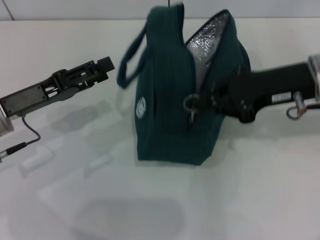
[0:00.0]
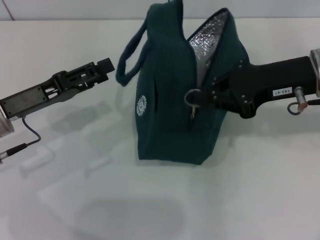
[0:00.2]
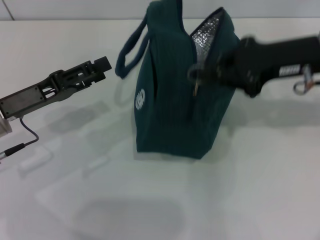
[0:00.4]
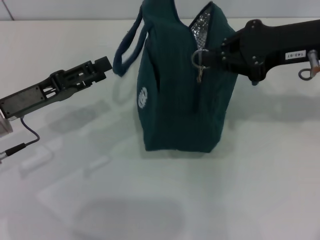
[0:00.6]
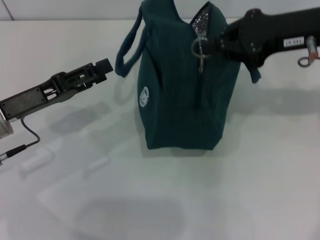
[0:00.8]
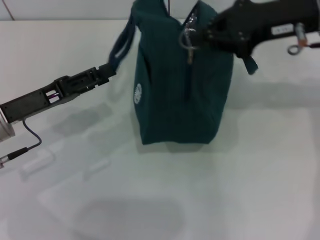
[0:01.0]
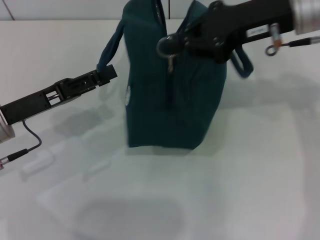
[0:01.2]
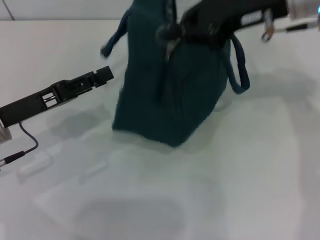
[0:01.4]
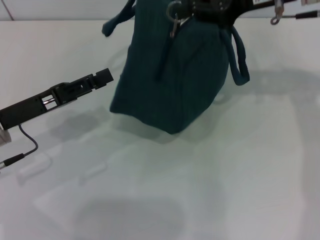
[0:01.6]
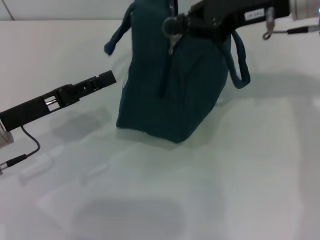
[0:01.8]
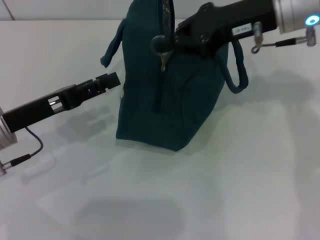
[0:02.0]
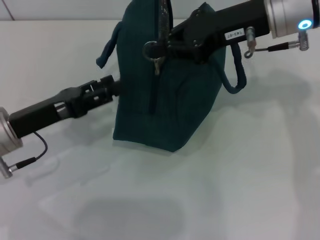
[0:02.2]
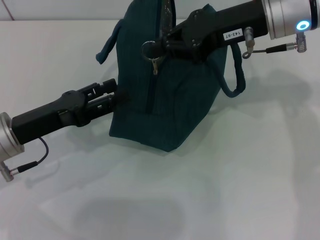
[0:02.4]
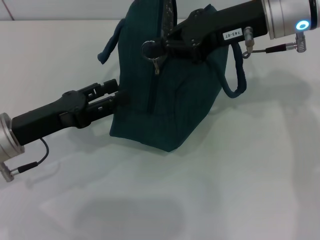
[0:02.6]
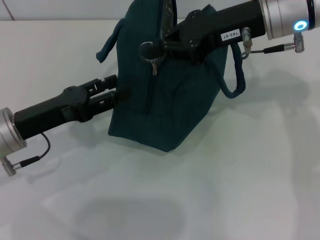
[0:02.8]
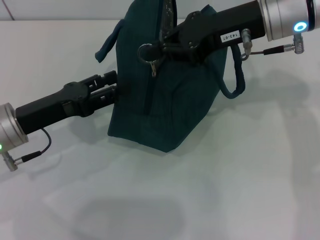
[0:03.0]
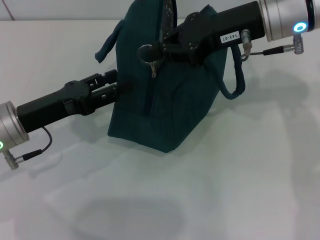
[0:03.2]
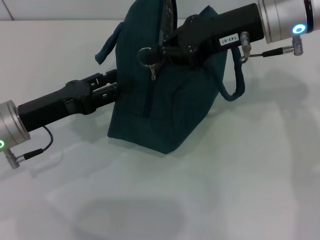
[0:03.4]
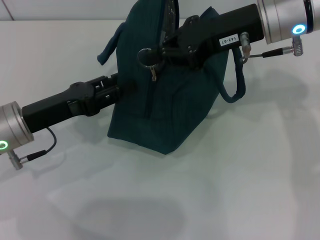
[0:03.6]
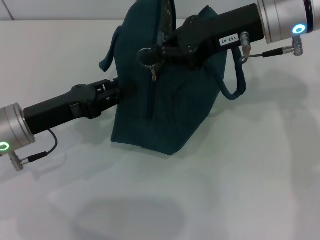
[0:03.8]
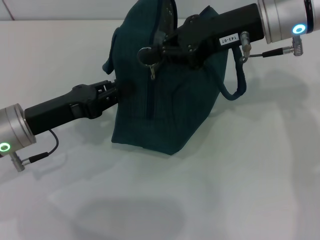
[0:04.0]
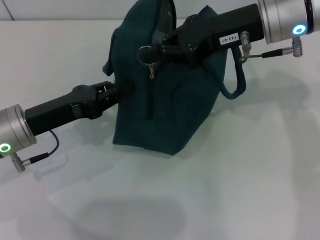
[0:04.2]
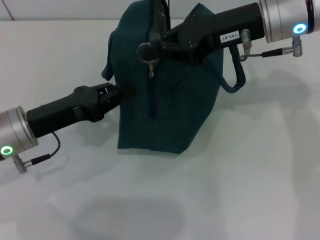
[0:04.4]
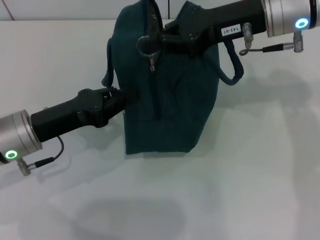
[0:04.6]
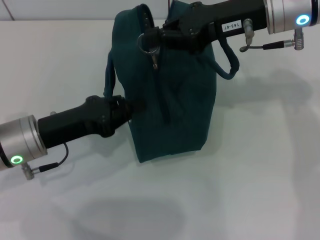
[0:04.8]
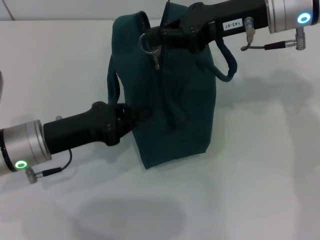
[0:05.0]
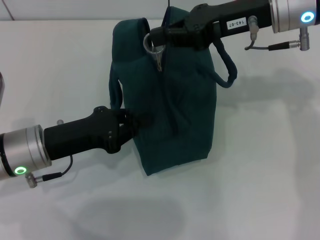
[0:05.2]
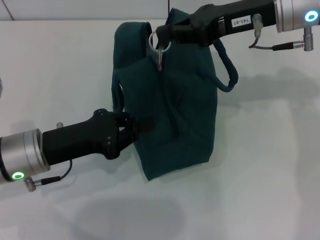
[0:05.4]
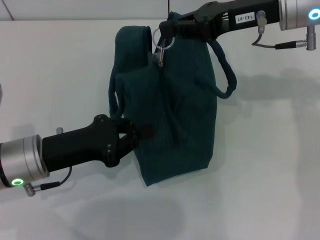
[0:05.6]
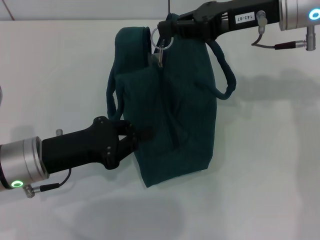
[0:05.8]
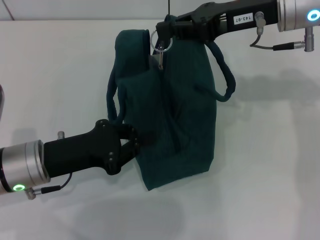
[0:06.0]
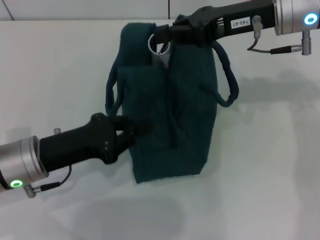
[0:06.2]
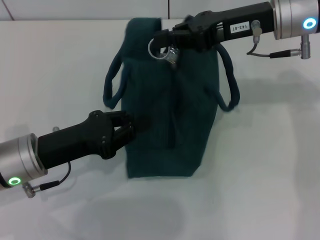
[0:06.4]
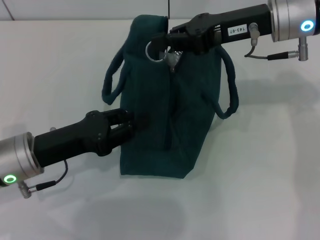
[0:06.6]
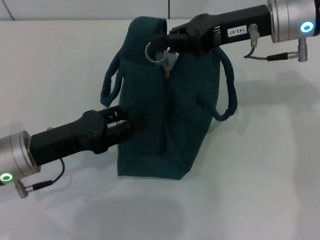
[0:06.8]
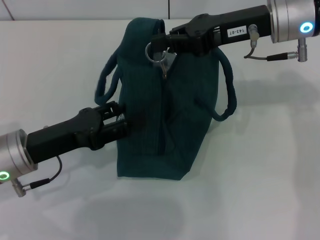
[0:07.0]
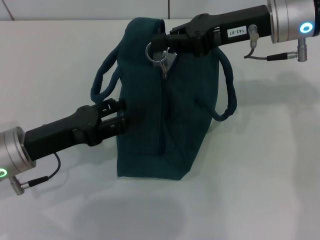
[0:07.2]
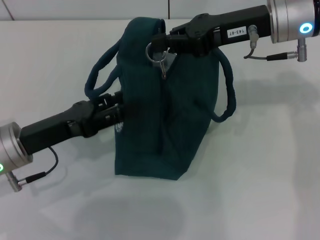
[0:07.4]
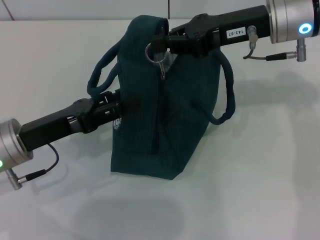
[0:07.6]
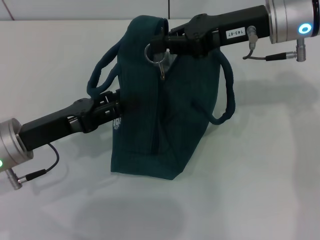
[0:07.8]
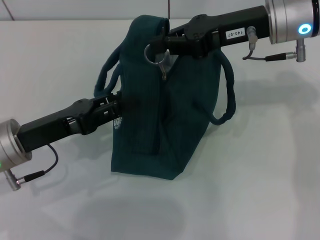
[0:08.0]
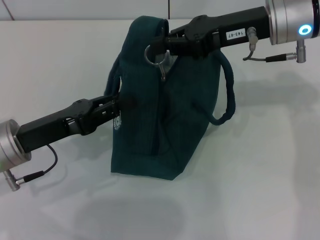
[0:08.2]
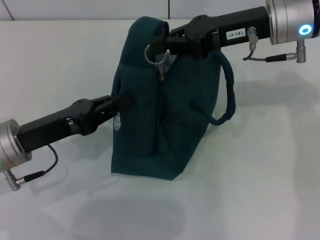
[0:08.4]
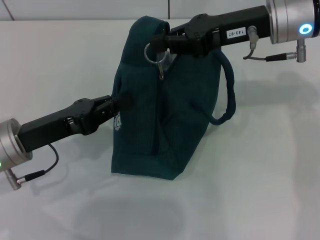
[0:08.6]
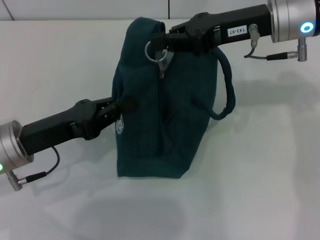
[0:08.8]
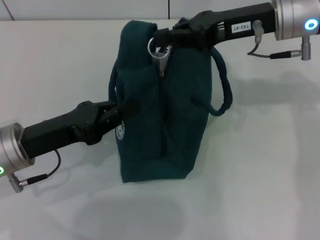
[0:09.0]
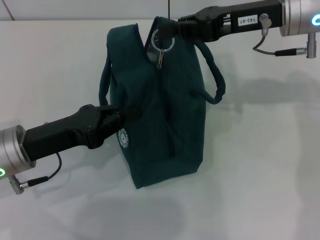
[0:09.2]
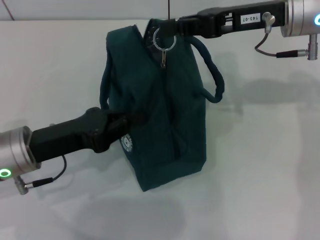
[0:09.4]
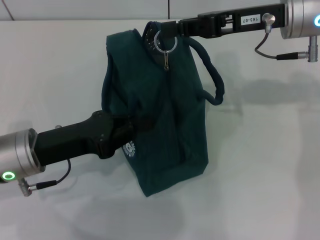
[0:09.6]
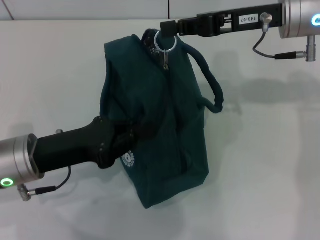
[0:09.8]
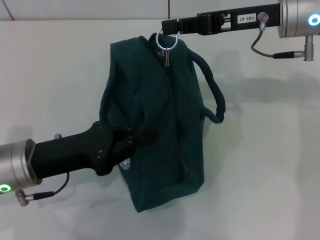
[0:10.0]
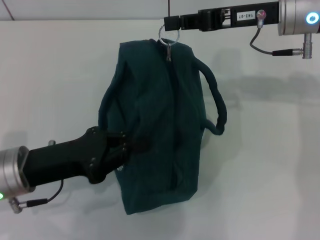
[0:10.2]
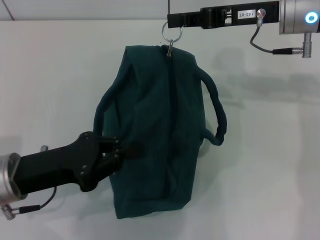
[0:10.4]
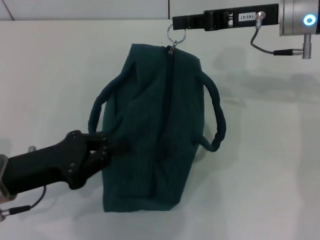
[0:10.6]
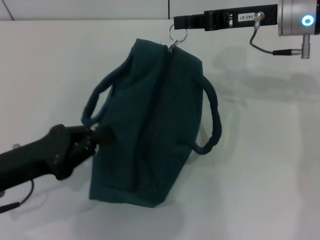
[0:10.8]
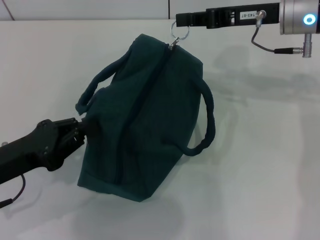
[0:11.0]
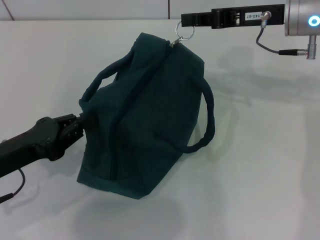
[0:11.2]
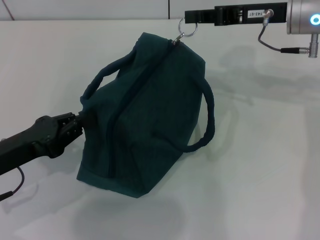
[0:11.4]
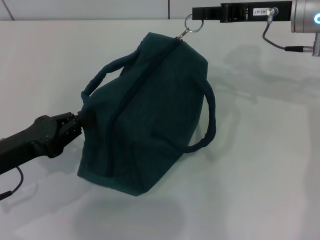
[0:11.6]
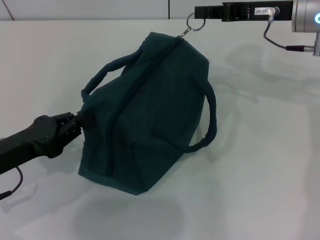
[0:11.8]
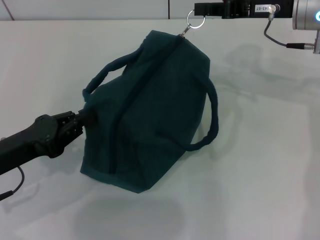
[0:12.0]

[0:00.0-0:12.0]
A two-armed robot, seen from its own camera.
0:00.0 to 0:01.6: The right gripper heads upward and forward, covering some 10 cm.
0:03.0 to 0:04.4: The left gripper closes up.
0:06.0 to 0:07.6: The left gripper opens up.
0:07.6 to 0:09.0: The left gripper closes up.

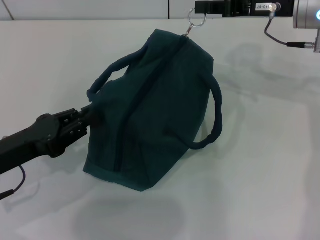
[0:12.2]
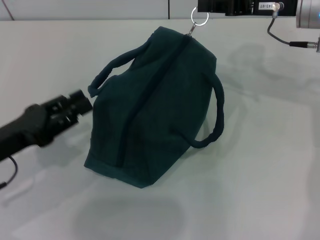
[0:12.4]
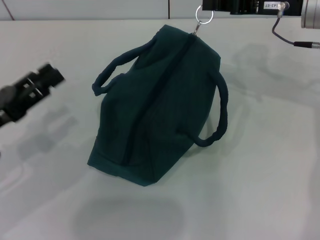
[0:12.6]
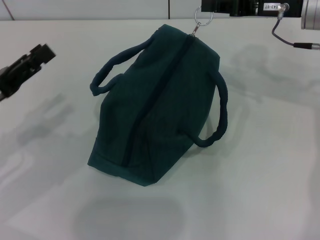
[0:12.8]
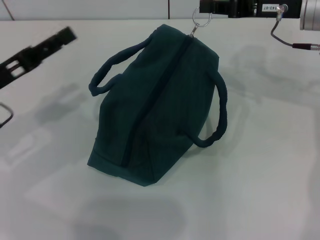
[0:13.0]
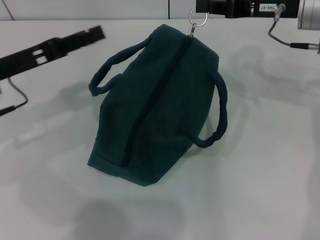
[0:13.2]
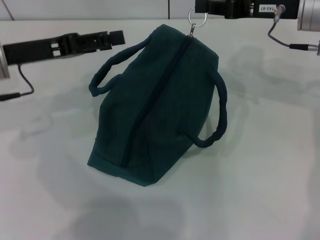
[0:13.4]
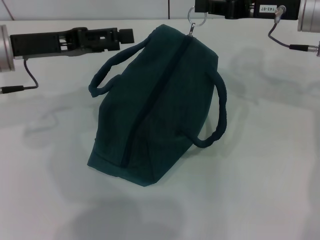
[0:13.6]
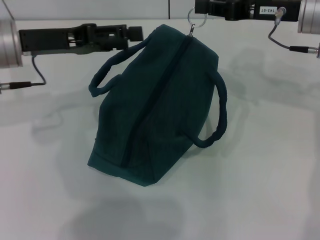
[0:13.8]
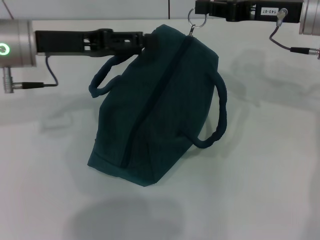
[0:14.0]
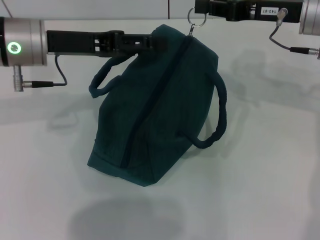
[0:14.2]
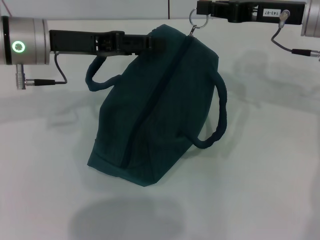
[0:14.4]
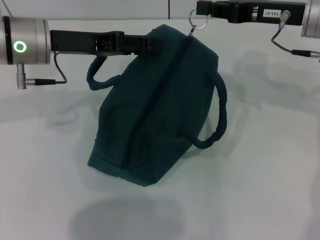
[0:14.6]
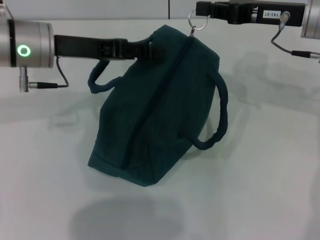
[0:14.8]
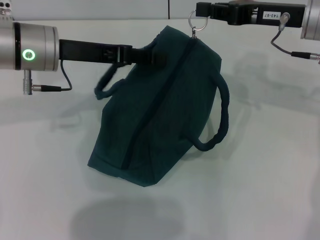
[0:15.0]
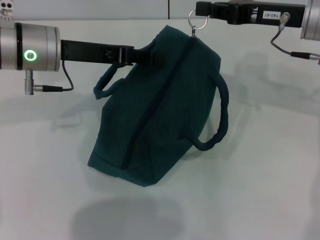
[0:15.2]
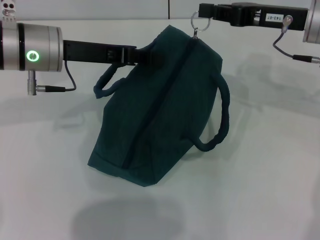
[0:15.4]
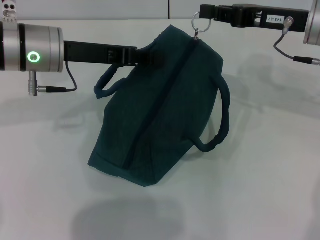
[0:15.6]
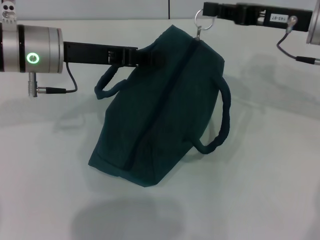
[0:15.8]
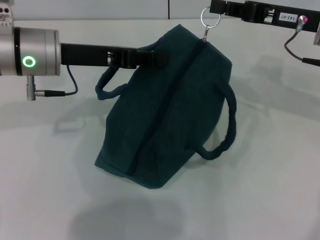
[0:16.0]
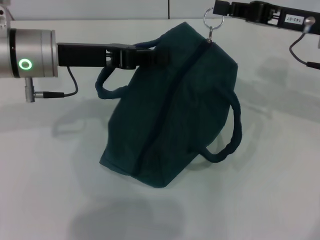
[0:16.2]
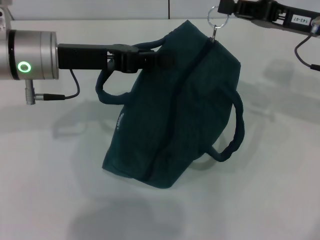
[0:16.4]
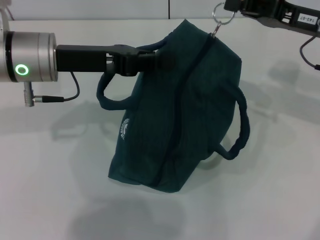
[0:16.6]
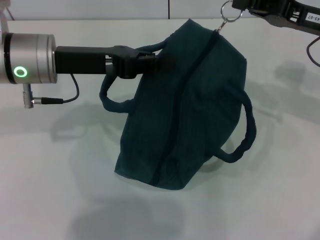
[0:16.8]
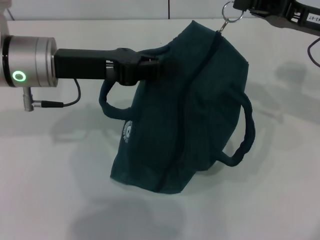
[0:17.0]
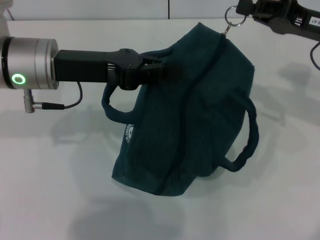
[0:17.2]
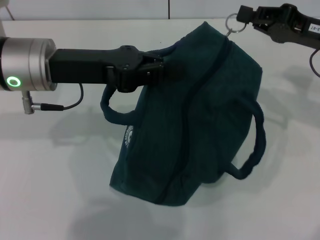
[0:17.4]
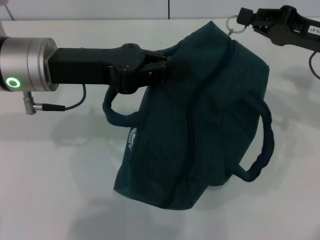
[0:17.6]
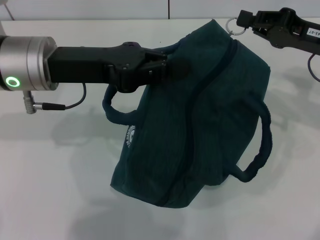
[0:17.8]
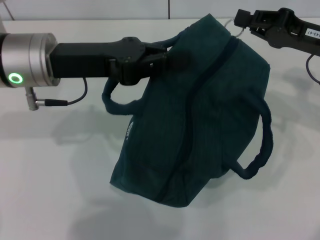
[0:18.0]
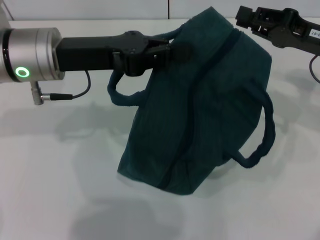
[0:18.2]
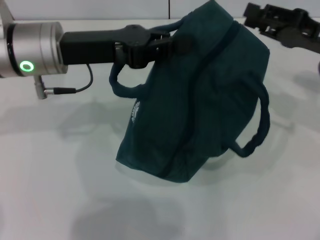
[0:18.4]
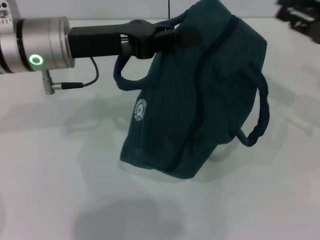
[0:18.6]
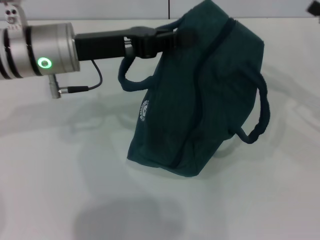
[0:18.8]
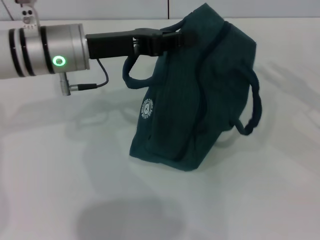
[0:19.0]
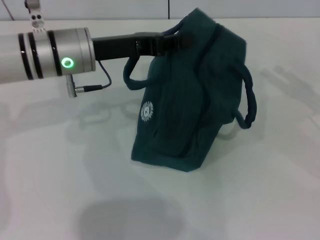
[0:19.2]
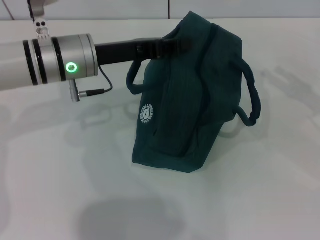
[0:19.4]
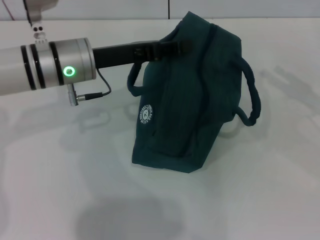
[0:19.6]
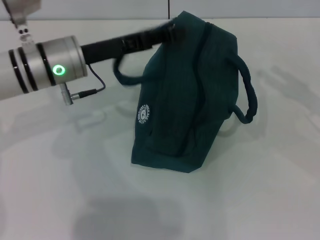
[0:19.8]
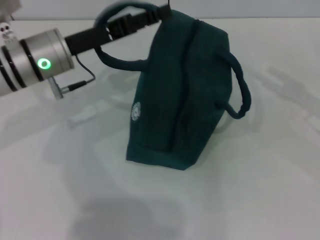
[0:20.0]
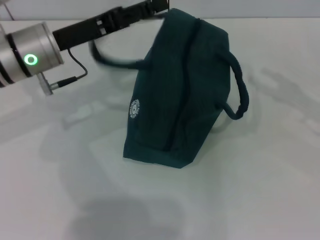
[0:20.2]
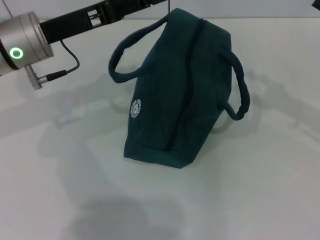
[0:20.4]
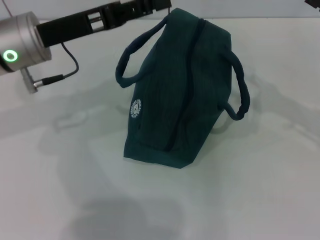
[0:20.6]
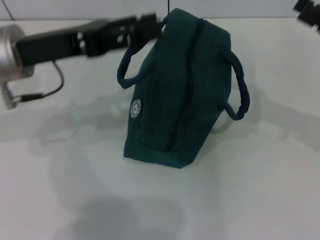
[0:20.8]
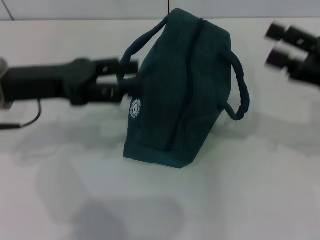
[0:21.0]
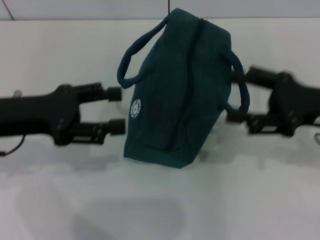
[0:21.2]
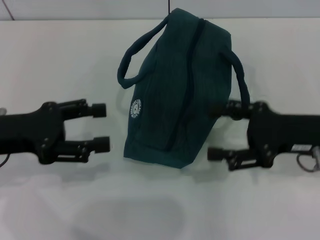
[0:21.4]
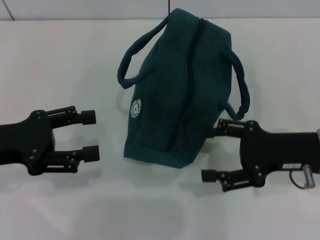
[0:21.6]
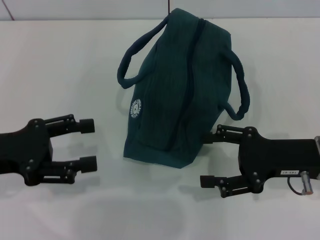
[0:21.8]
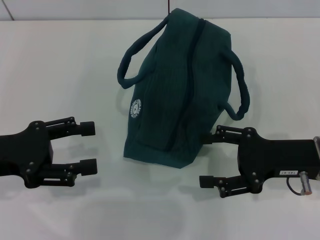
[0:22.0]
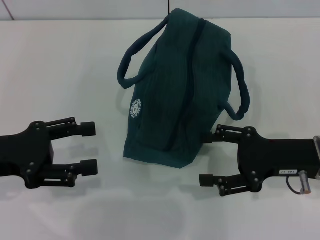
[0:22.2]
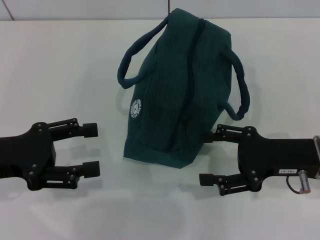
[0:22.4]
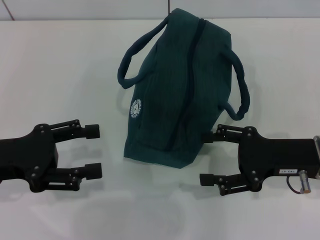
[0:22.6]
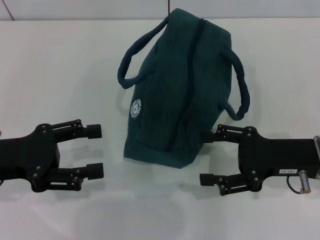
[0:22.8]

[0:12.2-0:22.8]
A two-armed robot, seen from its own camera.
Step, 0:12.2 to 0:18.4: Zip up the lunch bag with your right hand.
Step, 0:18.6 to 0:20.0: Hold the lunch bag with your left hand.
0:12.2 to 0:13.8: The left gripper goes approximately 15 cm forward and upward, and opens.
0:13.8 to 0:15.2: The left gripper closes its fingers.
0:15.2 to 0:16.8: The left gripper closes; the right gripper shifts by roughly 5 cm.
0:18.2 to 0:19.8: The right gripper moves to the right, approximately 10 cm, and opens up, while the left gripper travels downward by roughly 5 cm.
0:19.8 to 0:21.2: The right gripper heads to the left, covering some 10 cm, while the left gripper moves to the left and backward, about 15 cm, and opens its fingers.
0:21.2 to 0:22.8: The right gripper changes place by roughly 5 cm, while the left gripper shifts by about 5 cm.
